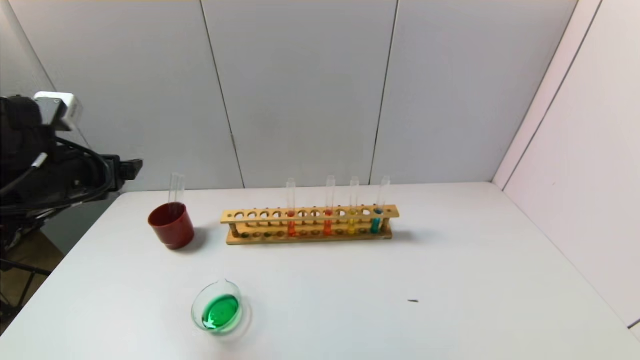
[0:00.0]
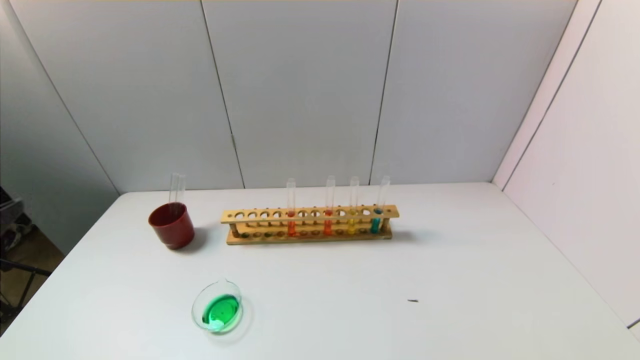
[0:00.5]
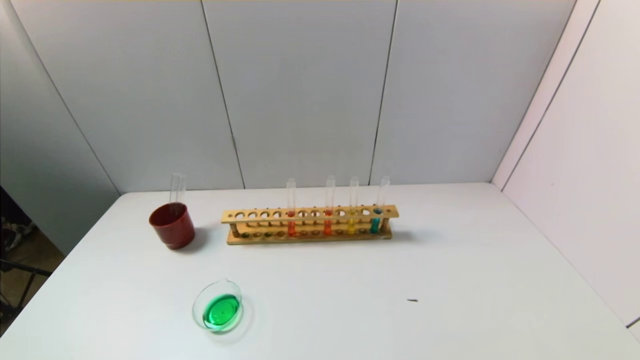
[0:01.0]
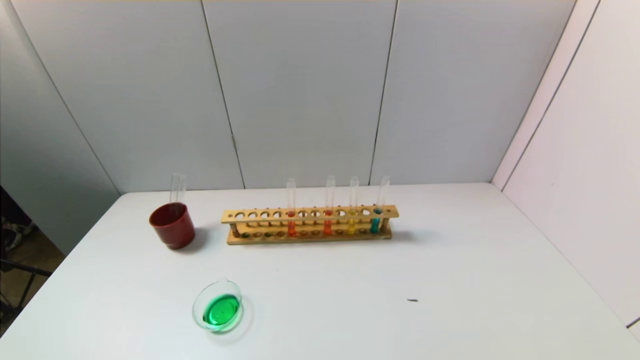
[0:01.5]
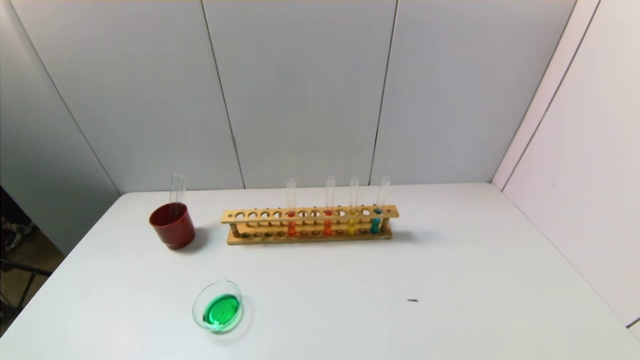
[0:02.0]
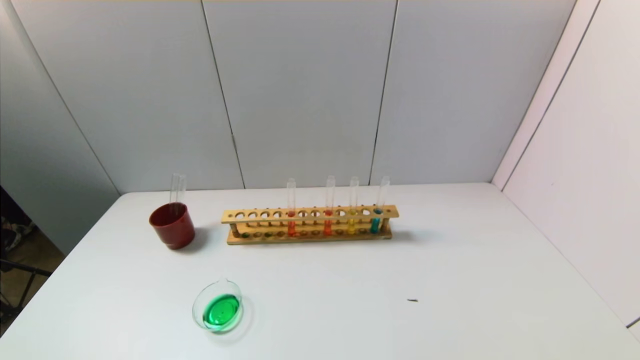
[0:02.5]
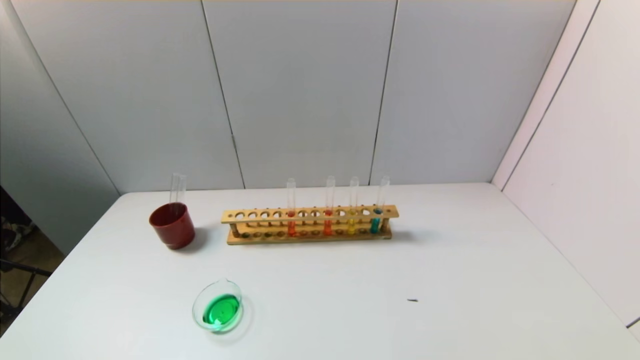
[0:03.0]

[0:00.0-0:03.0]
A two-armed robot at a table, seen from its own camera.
Task of the whole recording: pick up the test tube with yellow pigment and the test tube with blue pigment by grippers and pour them into the beaker.
0:00.0 to 0:01.5: The left gripper goes about 30 cm backward and downward.
